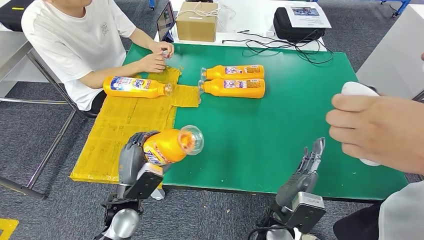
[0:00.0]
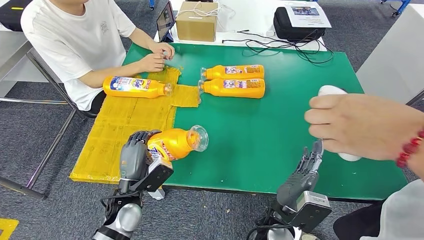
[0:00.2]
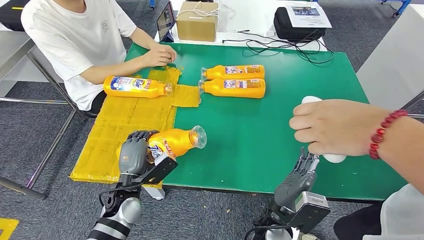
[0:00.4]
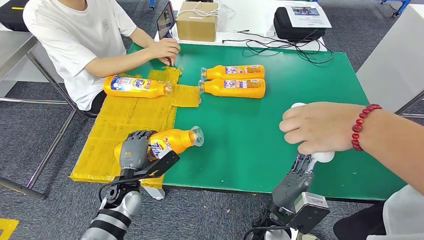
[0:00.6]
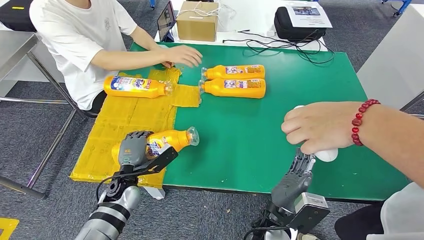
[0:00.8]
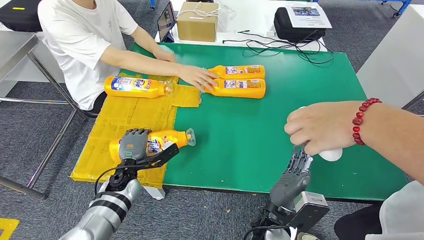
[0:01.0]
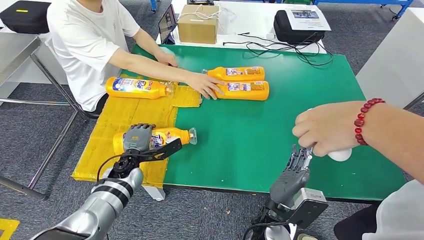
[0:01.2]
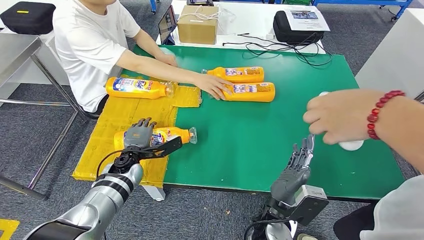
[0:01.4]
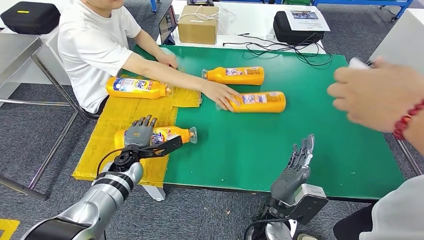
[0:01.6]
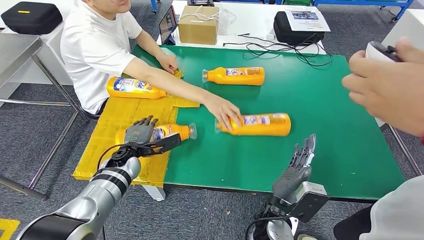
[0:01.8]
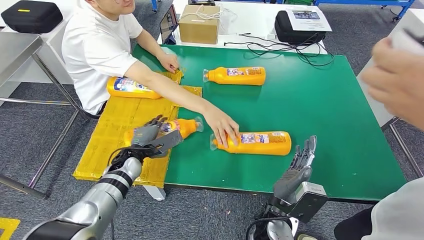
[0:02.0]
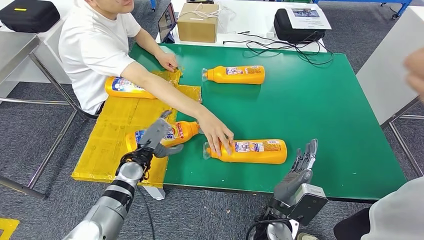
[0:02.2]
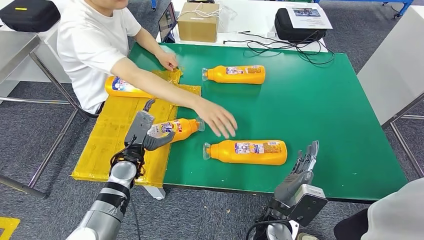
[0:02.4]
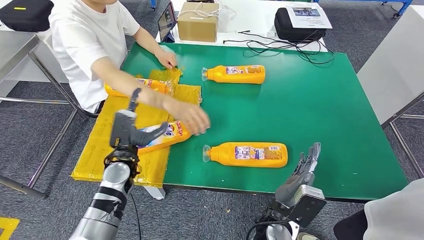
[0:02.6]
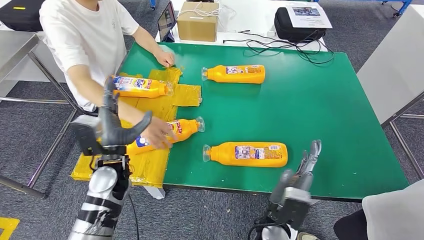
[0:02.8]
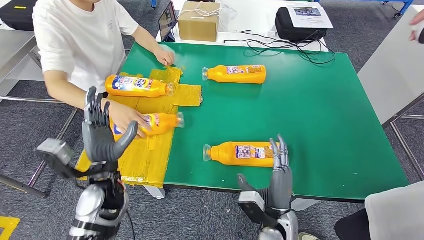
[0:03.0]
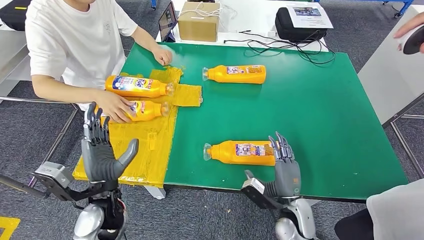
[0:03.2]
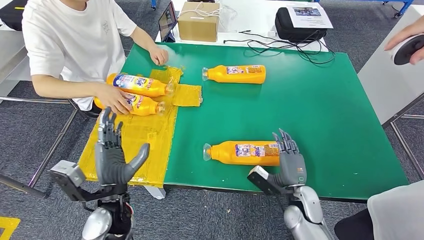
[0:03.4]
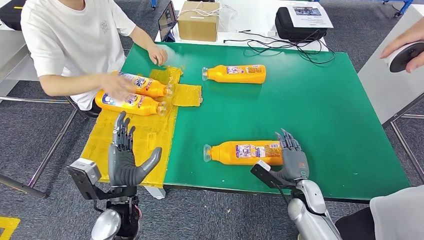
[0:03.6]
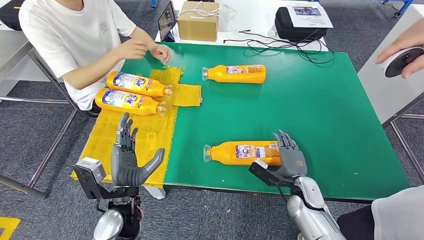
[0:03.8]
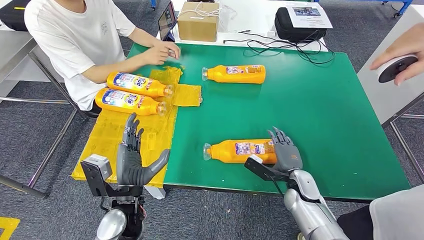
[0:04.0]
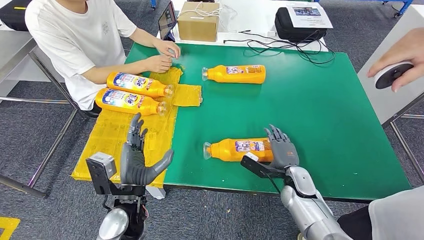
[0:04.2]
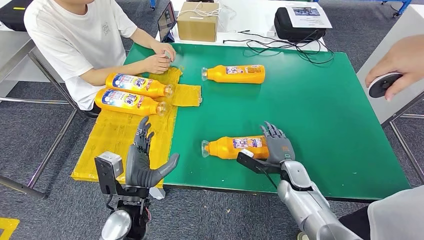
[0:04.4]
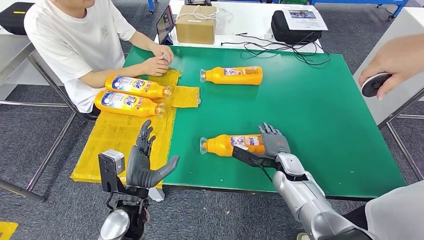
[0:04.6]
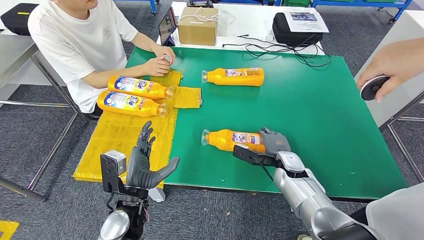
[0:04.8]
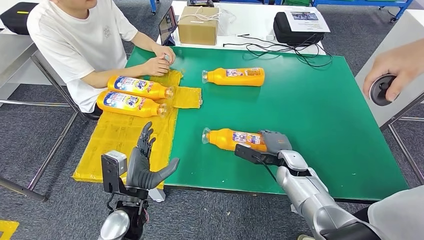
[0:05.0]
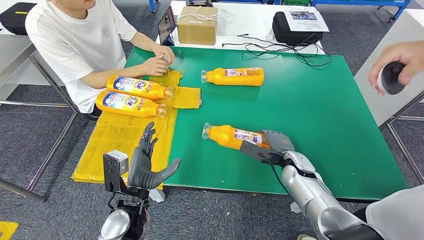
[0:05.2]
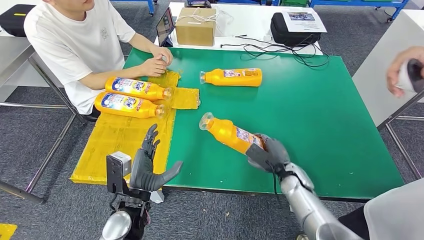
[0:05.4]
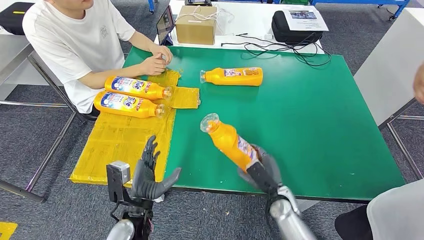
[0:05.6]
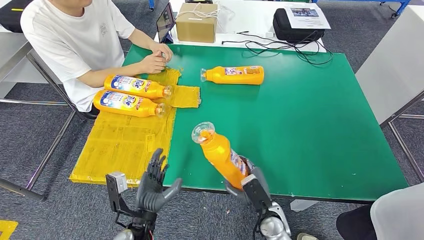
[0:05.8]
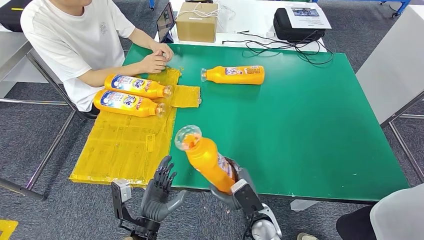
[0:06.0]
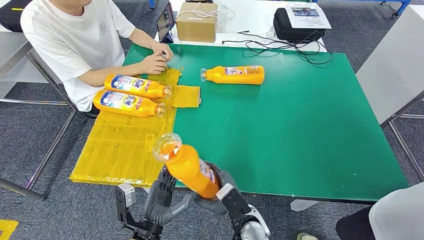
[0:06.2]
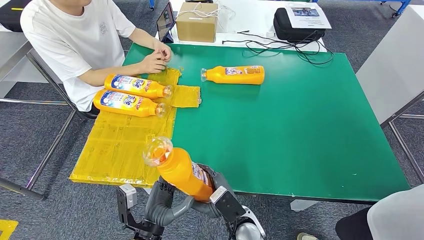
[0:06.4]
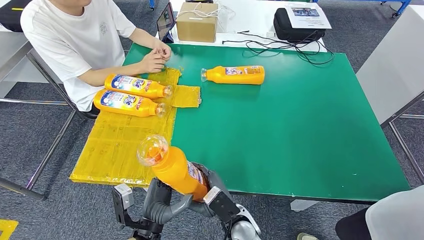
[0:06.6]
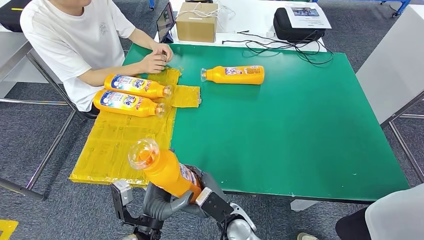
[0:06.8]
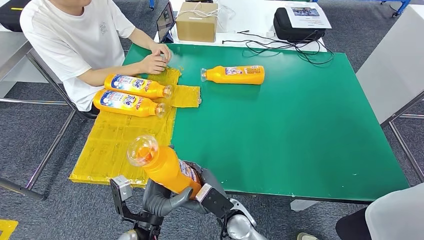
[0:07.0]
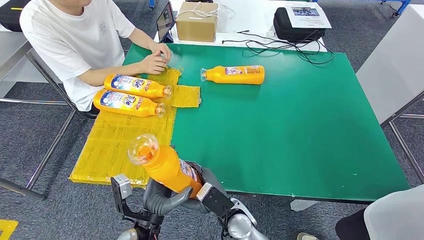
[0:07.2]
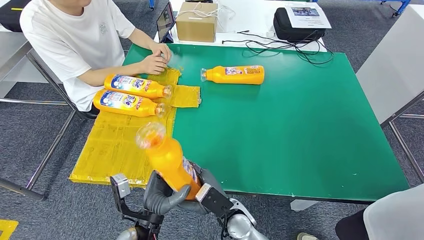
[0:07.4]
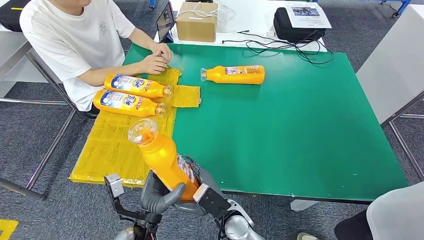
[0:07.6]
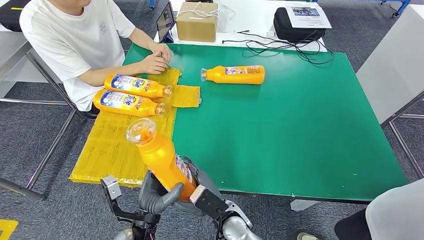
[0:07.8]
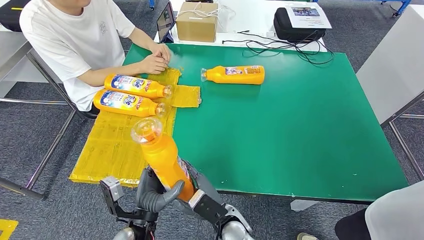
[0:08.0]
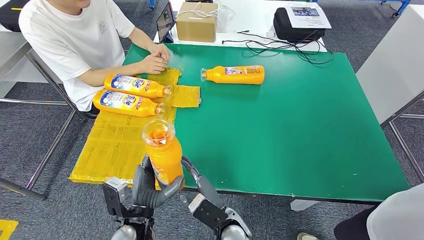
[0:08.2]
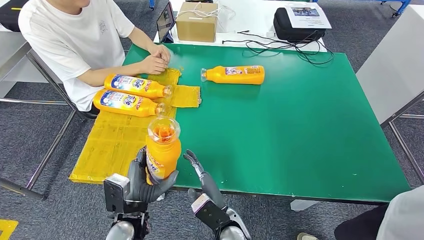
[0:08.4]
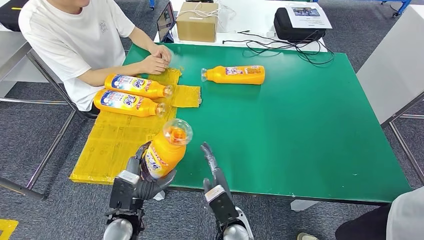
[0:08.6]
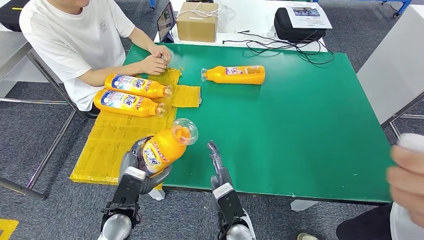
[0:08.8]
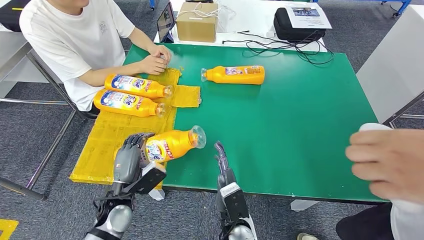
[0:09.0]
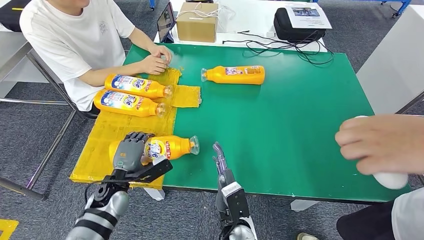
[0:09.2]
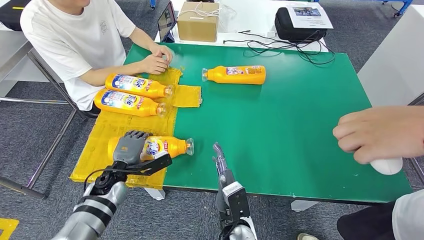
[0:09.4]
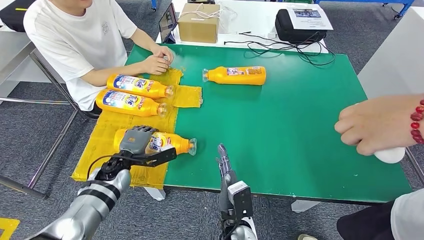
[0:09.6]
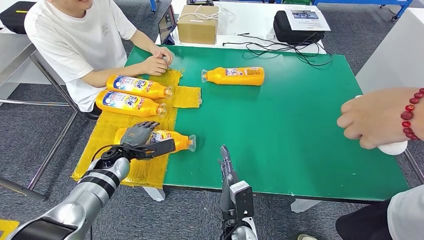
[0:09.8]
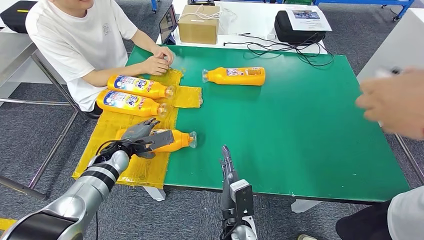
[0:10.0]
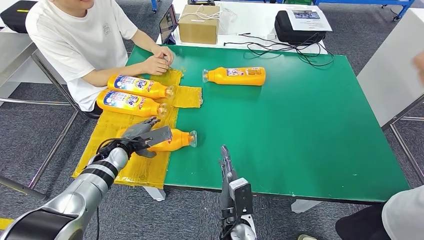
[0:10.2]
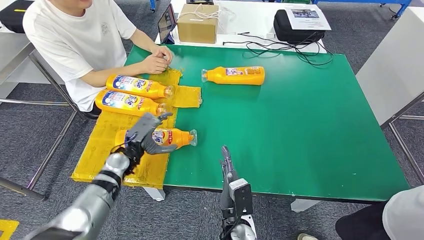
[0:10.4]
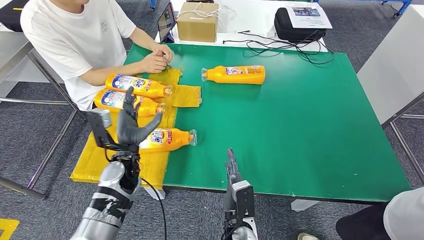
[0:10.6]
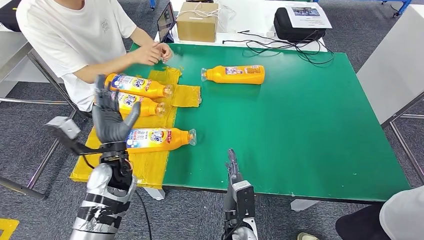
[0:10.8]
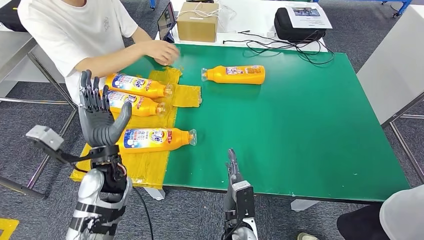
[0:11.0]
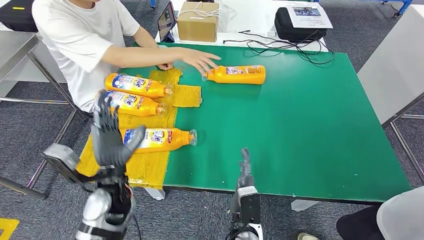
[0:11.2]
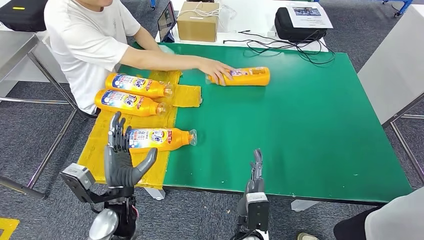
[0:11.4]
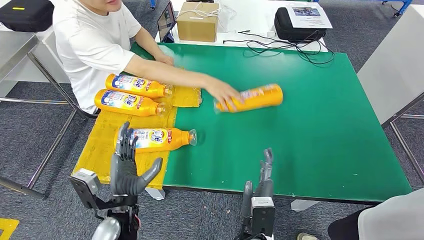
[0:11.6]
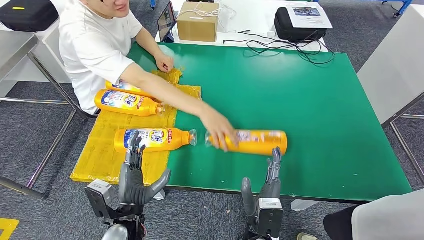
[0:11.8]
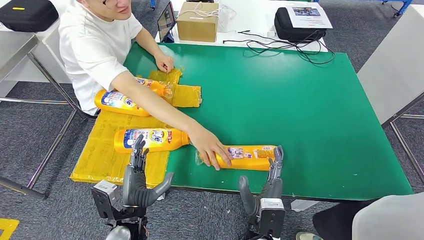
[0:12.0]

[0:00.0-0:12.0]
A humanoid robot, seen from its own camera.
Step, 0:00.0 to 0:02.8: Flip the bottle to face forward.
Step, 0:03.2 to 0:05.8: Pick up the bottle from the table.
Step, 0:06.4 to 0:10.8: Flip the bottle to face forward.
0:06.0 to 0:07.6: The right hand shifts some 10 cm to the left.
0:07.6 to 0:09.0: The left hand goes some 10 cm to the left and forward.

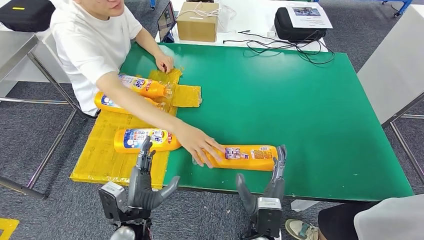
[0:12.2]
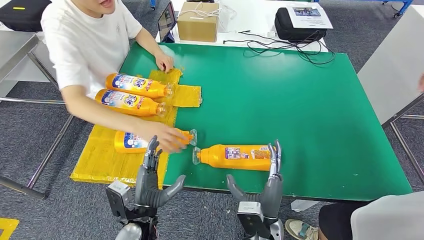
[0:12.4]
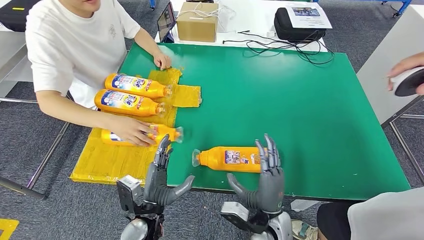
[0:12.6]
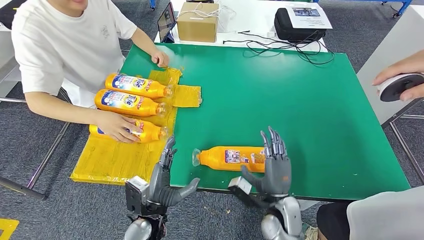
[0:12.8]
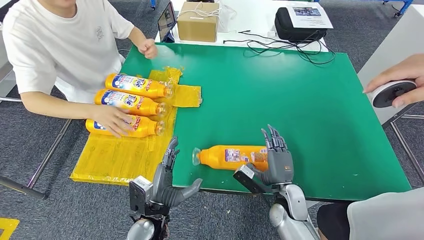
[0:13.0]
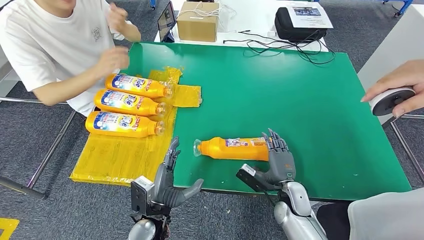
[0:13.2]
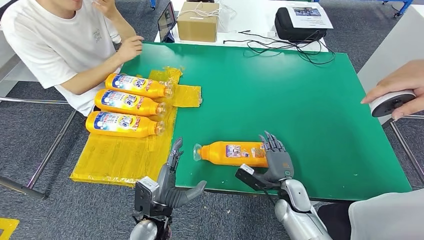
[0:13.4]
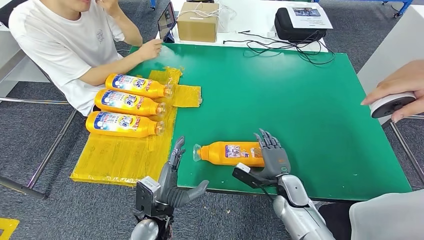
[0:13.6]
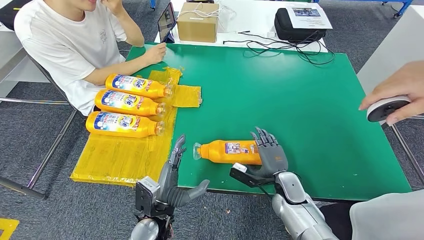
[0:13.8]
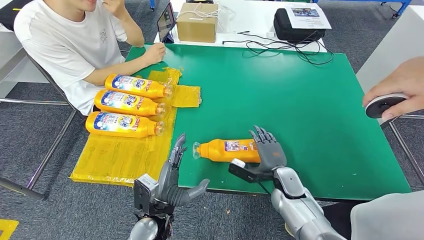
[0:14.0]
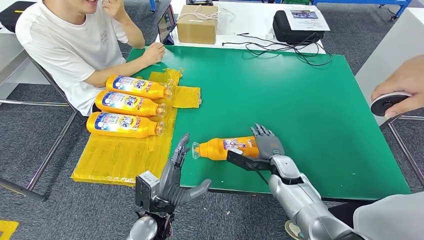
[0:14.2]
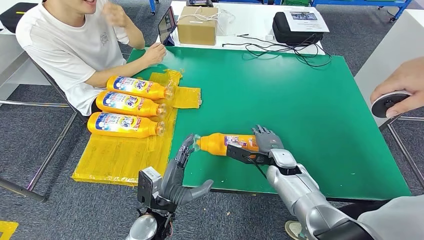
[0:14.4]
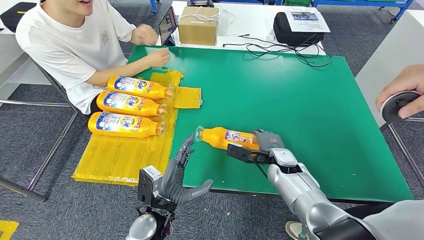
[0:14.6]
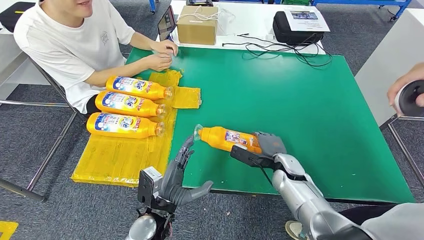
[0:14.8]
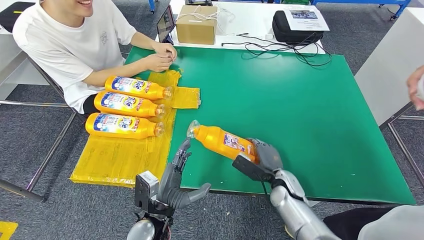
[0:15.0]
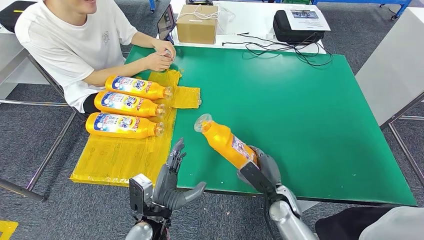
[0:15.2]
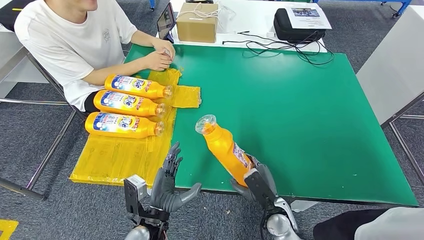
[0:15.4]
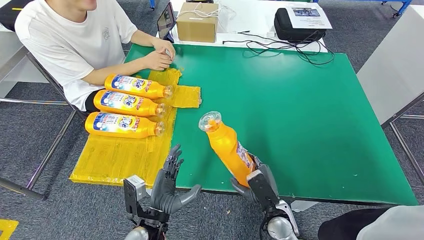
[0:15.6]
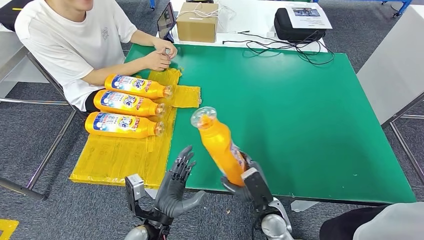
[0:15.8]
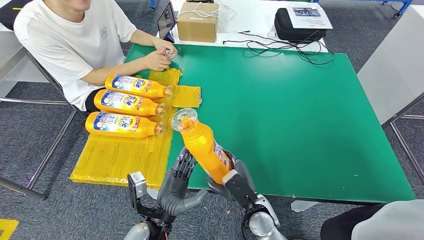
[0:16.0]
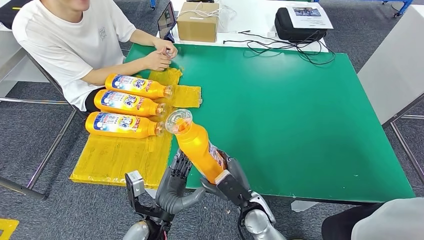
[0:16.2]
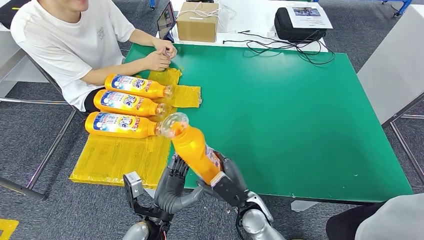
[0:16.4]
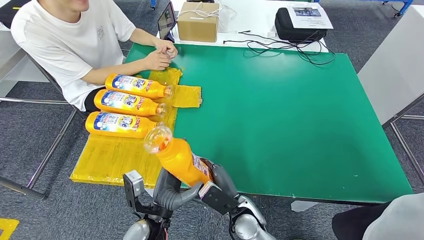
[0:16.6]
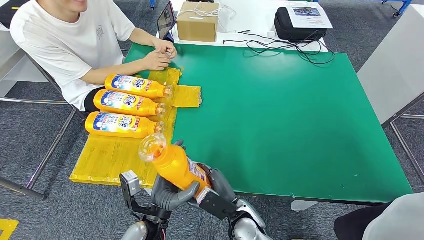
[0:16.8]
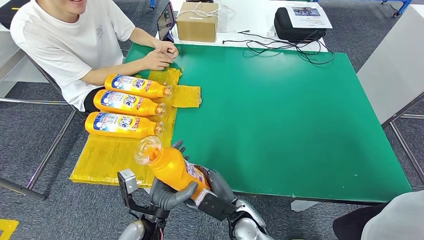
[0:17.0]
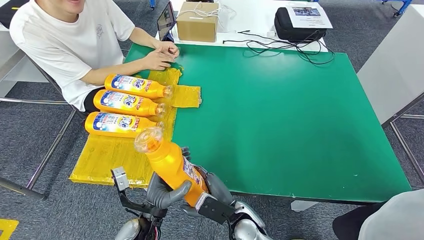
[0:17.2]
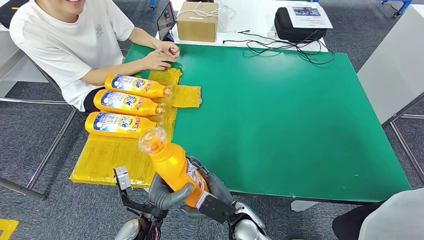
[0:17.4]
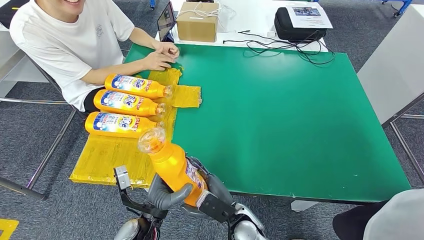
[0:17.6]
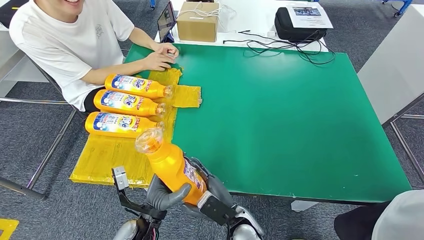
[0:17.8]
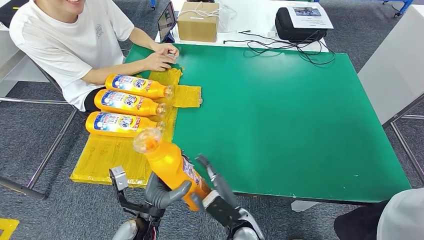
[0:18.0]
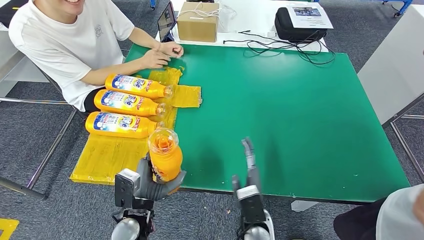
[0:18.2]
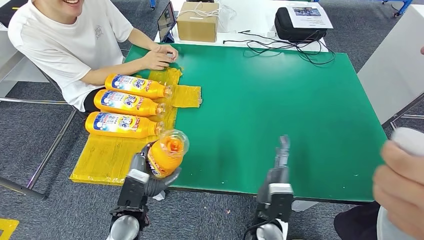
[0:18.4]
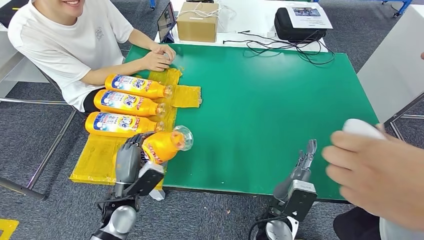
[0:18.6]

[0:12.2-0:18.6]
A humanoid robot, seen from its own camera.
Step, 0:12.2 to 0:15.4: Pick up the bottle from the table.
0:13.8 to 0:15.4: The right hand goes roughly 5 cm backward.
0:15.4 to 0:17.0: The right hand moves to the left, some 10 cm.
